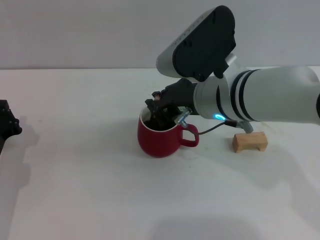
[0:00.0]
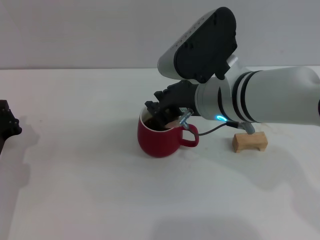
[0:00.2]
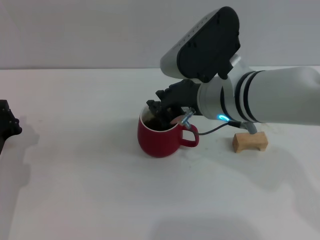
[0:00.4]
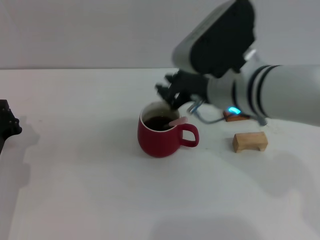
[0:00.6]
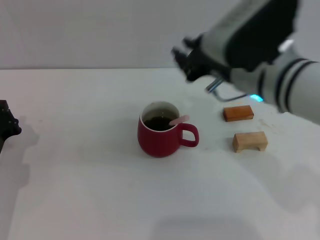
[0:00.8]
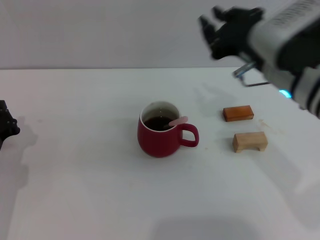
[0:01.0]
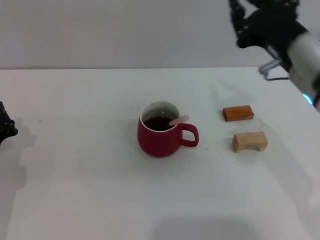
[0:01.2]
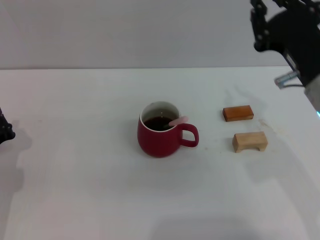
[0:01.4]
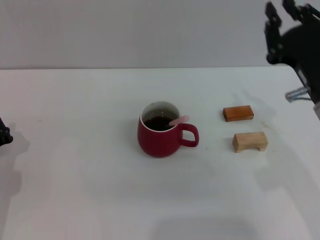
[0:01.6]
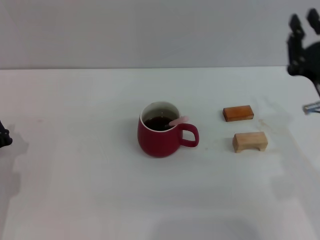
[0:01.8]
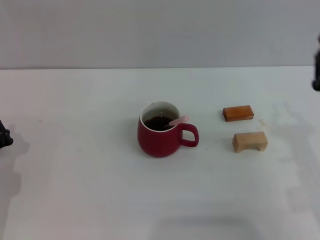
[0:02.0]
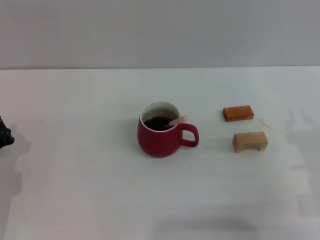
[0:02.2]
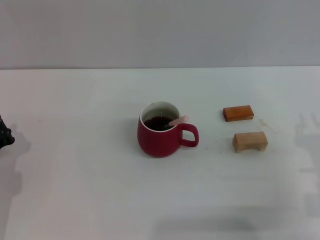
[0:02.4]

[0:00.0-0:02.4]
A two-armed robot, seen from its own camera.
Task of the whole recording: Move the red cup to the center, lift the pink spoon, stir it three times in the cup, and put the spoon into the cup.
0:00.0 to 0:01.2: The right gripper heads to the right, covering about 10 cm.
0:01.2 to 0:02.4: The right gripper moves downward, to the right and backward, approximately 15 cm.
